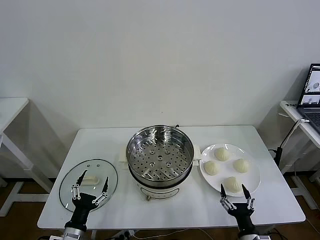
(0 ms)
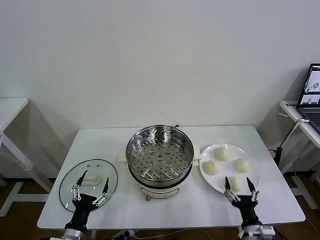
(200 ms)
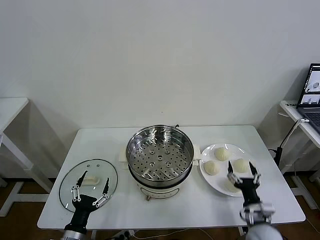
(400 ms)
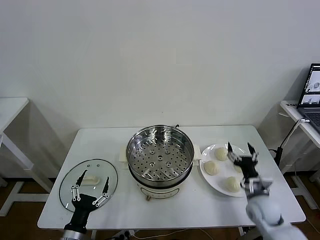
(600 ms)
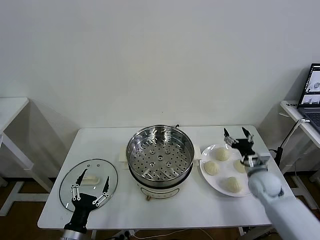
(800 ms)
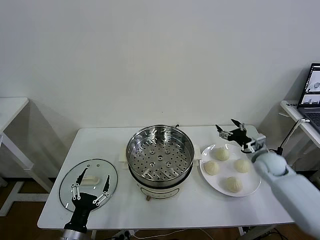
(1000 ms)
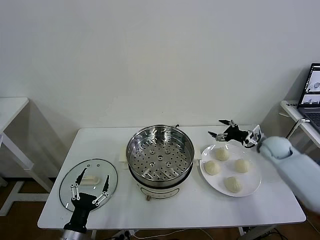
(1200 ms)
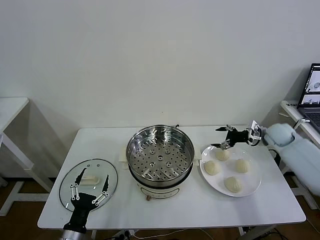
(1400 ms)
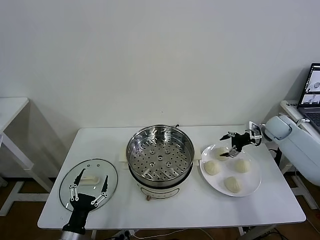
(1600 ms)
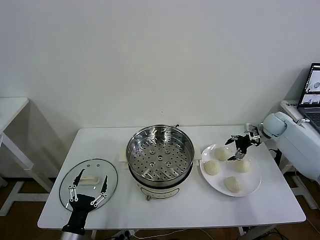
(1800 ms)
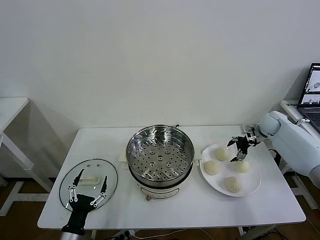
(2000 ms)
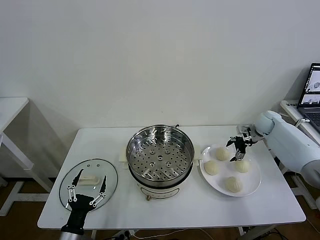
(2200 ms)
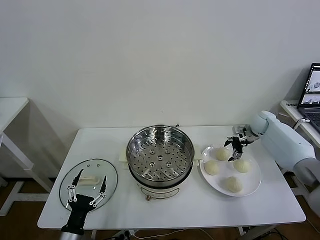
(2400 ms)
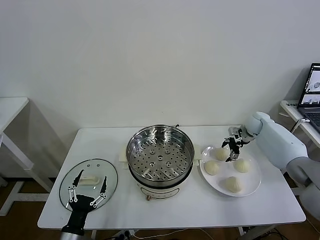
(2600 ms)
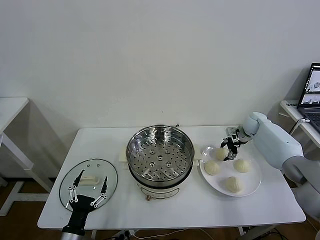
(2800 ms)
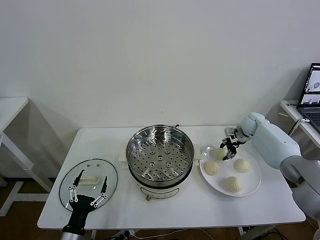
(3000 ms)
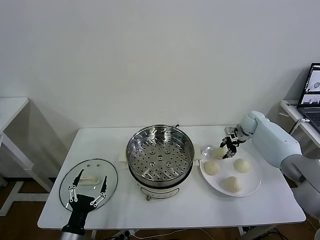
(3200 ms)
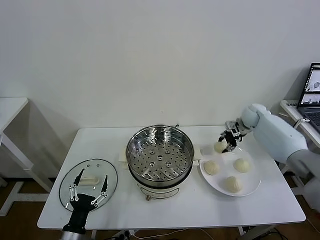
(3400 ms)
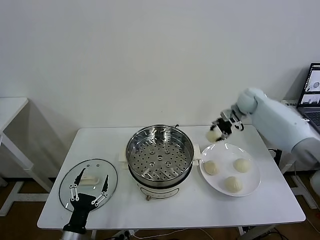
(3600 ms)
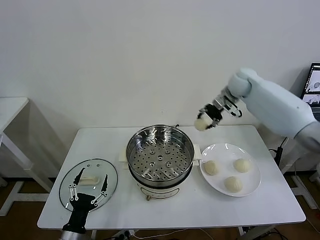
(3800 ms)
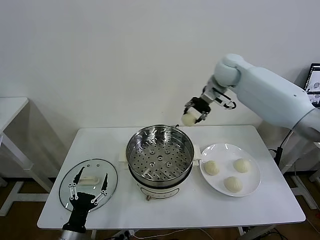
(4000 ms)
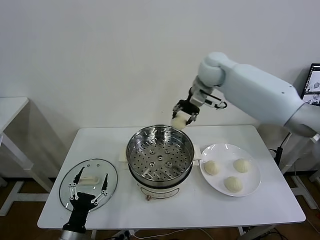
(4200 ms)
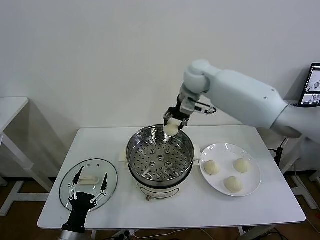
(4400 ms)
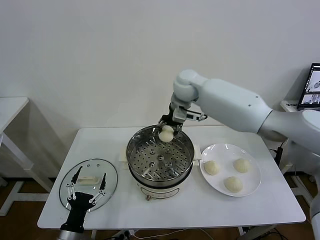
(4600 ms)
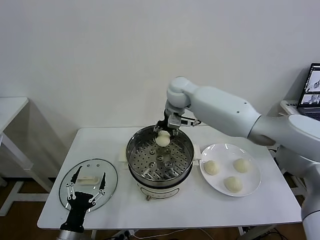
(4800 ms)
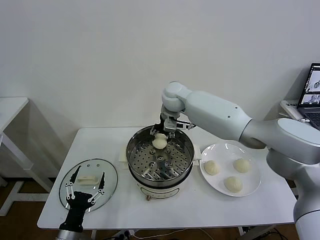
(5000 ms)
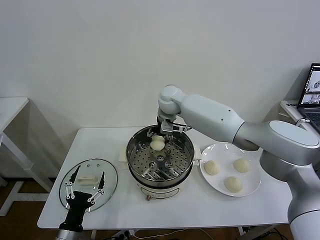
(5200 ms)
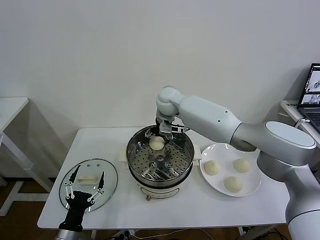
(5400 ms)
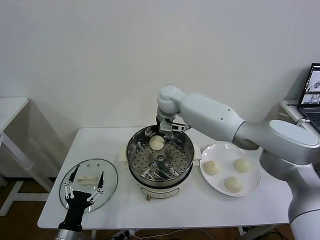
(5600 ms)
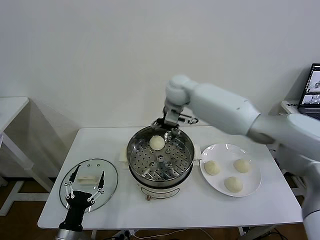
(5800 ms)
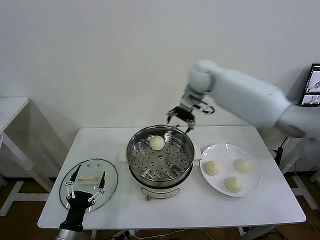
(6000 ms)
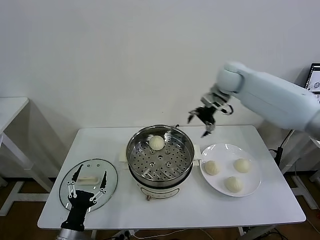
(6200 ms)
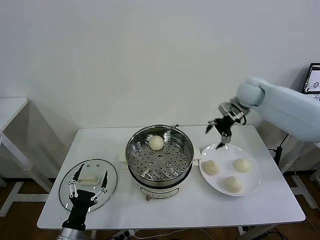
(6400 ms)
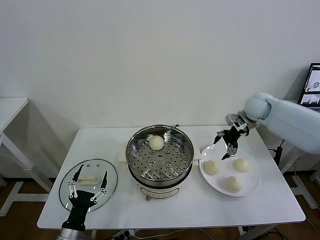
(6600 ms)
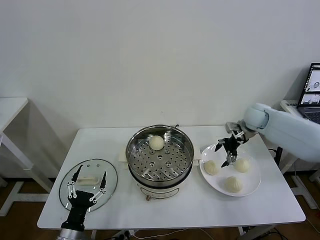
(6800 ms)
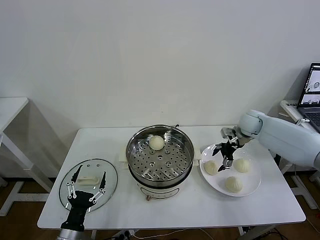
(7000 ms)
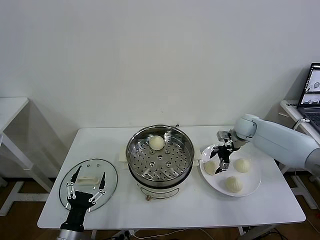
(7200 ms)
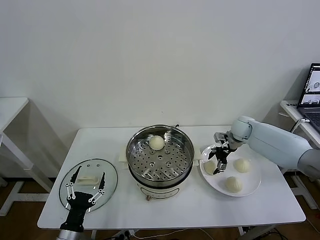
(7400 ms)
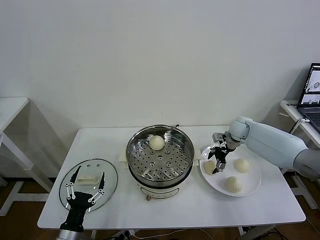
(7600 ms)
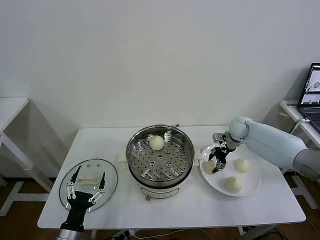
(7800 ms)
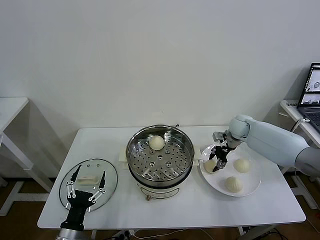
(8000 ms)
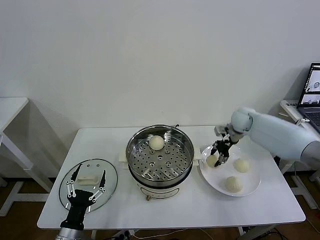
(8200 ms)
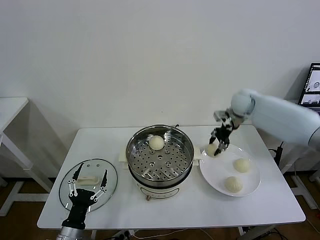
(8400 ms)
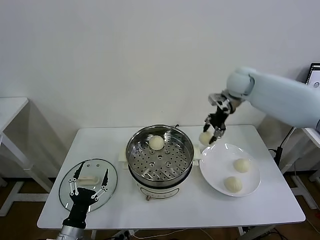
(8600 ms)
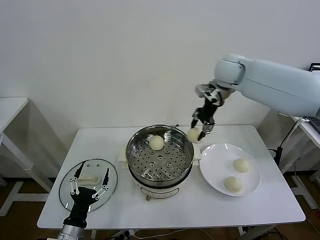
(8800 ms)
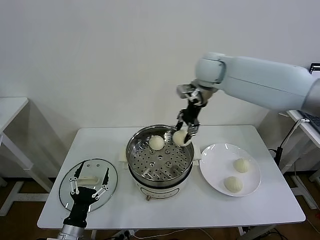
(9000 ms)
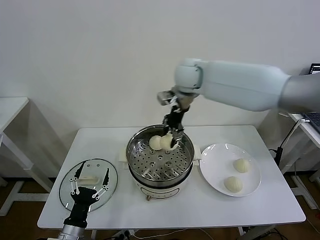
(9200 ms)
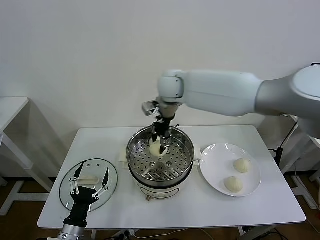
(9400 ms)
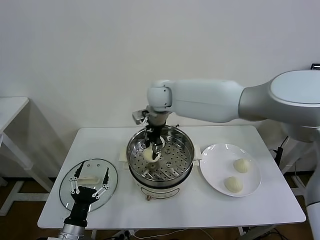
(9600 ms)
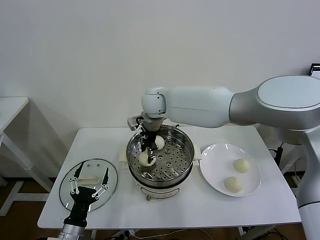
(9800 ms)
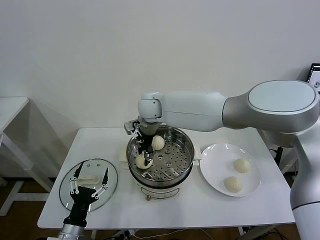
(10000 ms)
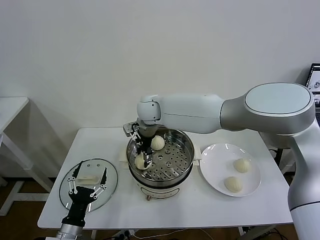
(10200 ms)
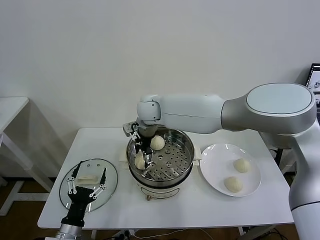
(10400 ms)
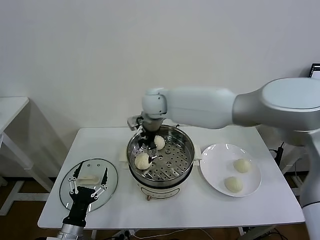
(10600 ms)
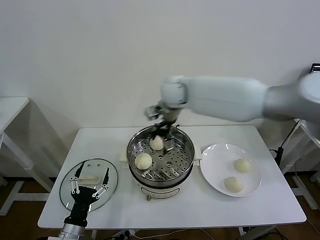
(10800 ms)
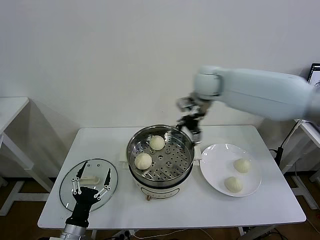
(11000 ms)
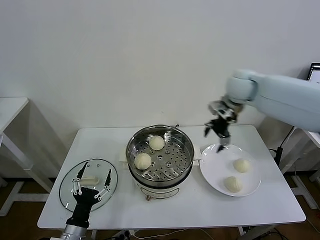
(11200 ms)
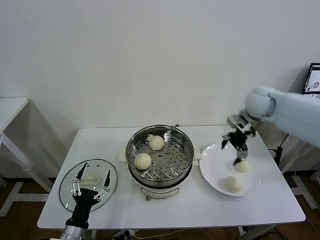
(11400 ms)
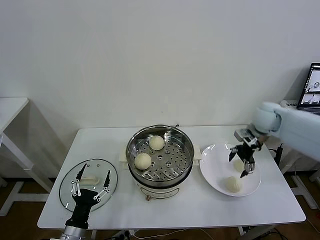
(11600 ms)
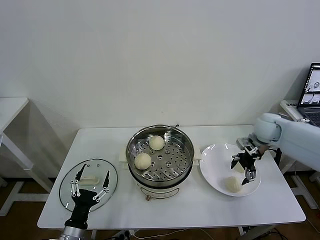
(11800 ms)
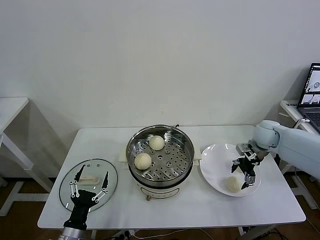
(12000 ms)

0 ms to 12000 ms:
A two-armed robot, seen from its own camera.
Task of the whole recording: take steamed baozi put them in steamer then cover it.
Step, 0 ms to 2800 ms: Grasp the baozi in the plate with right gripper.
Step, 3000 ms to 5400 ms: Place the baozi on the steamer with right gripper.
Step, 5600 ms to 7800 ms: Grasp the baozi in the plate with right gripper.
Step, 8000 ms to 10400 ms: Place the baozi on the steamer with right gripper.
1600 ms to 3000 ms: The right gripper goes about 10 cm to the left and forward, and closes.
3000 ms to 4400 ms: The right gripper is displaced to the left and upward by about 35 cm.
4400 ms to 6000 ms: The right gripper travels to the right by approximately 10 cm, and opens up.
6000 ms to 7600 ms: The right gripper heads downward and to the right, covering about 25 cm.
7600 ms to 9000 ms: The right gripper heads upward and to the left, covering approximately 35 cm, and closes its fingers.
9000 ms to 10400 ms: The right gripper goes approximately 20 cm to the left and downward, and opens its fingers.
10400 ms to 12000 ms: The right gripper goes approximately 40 cm to the right.

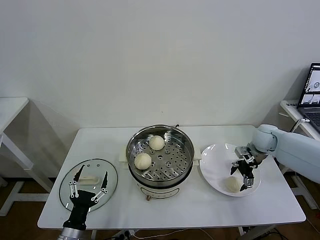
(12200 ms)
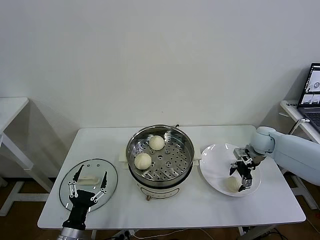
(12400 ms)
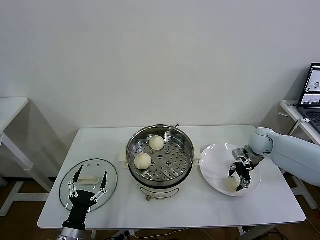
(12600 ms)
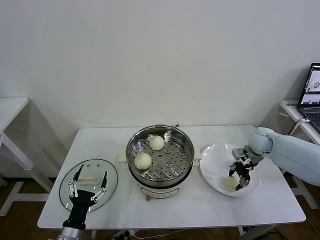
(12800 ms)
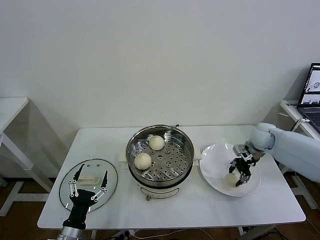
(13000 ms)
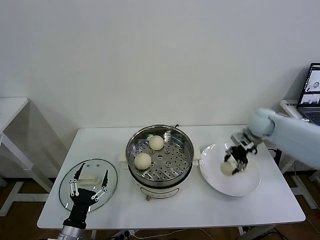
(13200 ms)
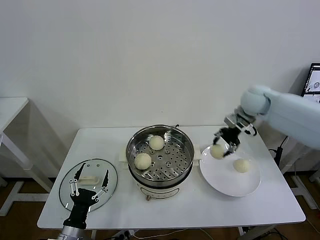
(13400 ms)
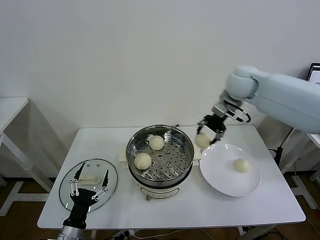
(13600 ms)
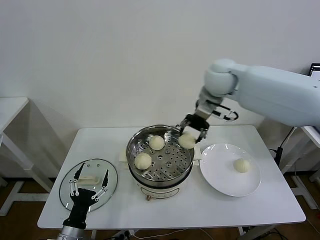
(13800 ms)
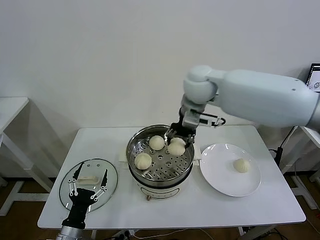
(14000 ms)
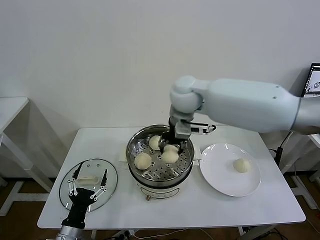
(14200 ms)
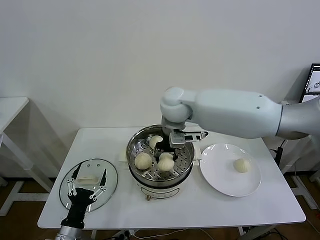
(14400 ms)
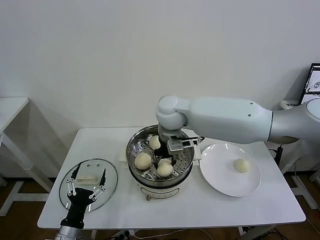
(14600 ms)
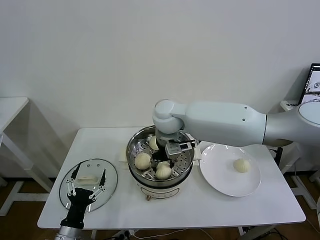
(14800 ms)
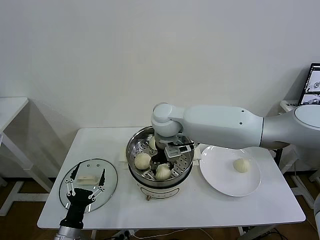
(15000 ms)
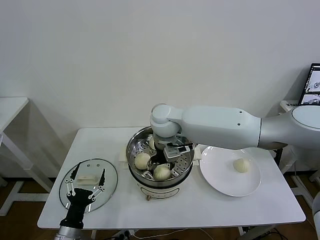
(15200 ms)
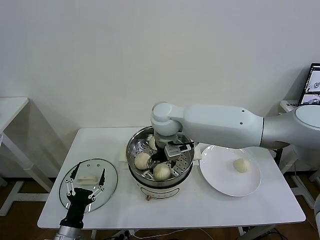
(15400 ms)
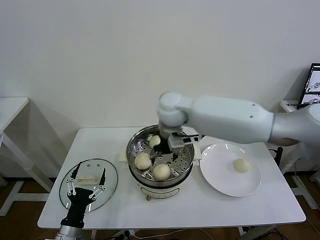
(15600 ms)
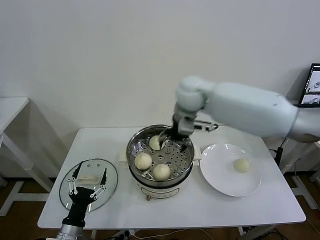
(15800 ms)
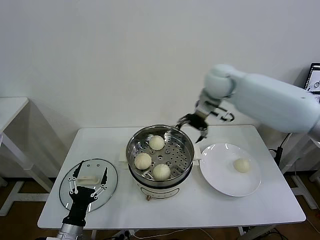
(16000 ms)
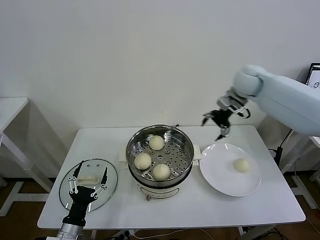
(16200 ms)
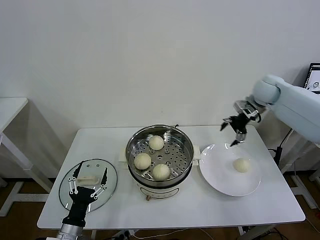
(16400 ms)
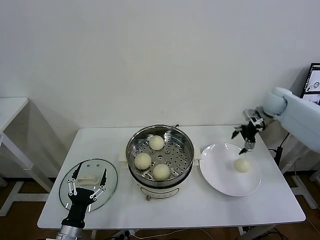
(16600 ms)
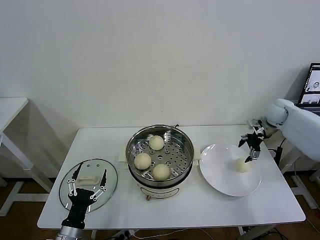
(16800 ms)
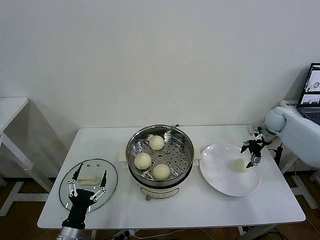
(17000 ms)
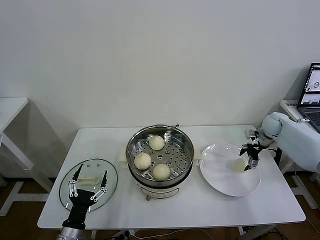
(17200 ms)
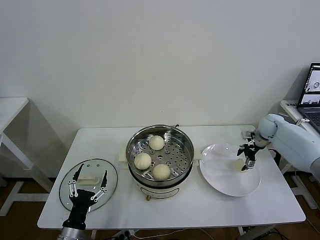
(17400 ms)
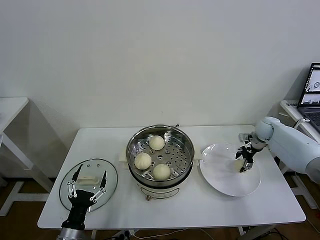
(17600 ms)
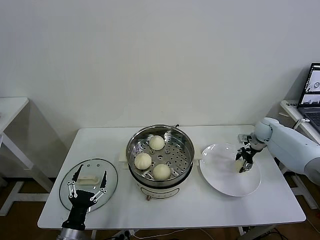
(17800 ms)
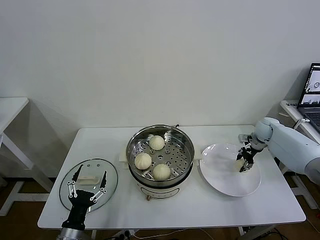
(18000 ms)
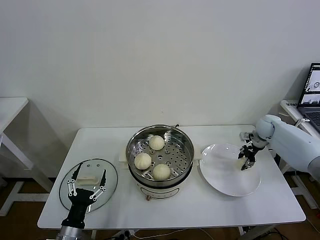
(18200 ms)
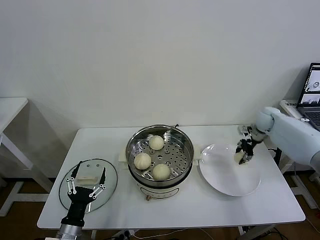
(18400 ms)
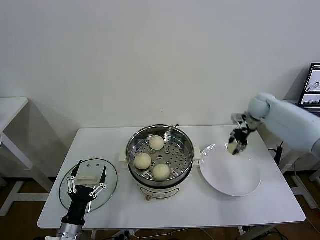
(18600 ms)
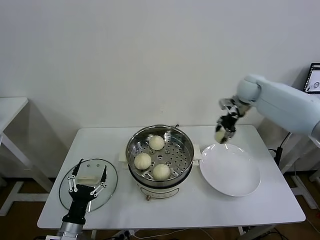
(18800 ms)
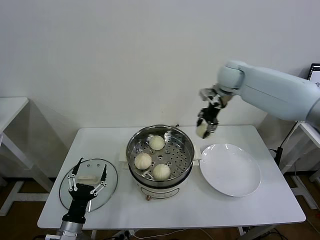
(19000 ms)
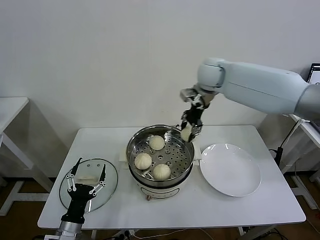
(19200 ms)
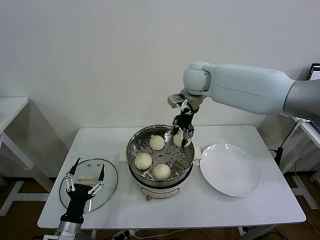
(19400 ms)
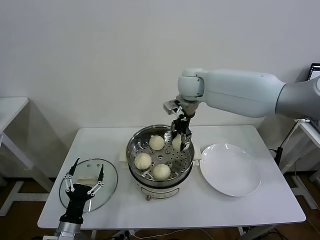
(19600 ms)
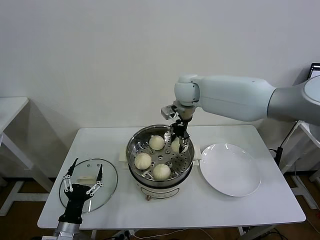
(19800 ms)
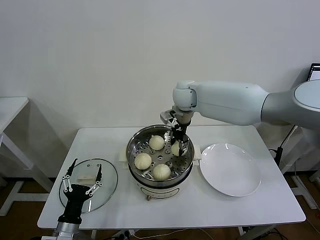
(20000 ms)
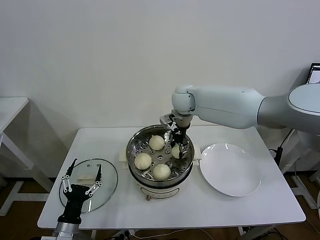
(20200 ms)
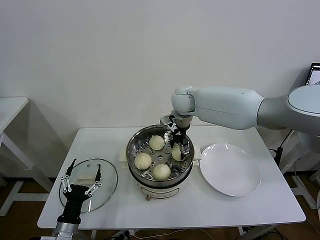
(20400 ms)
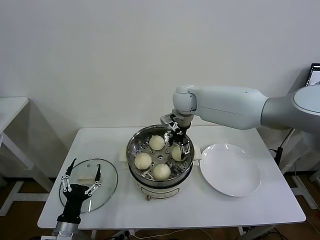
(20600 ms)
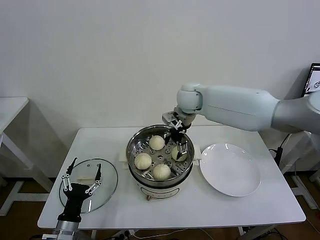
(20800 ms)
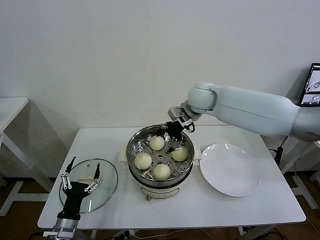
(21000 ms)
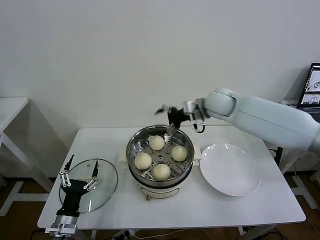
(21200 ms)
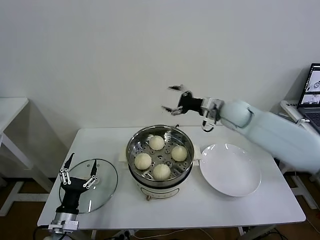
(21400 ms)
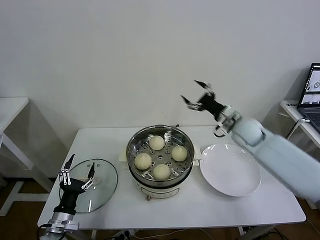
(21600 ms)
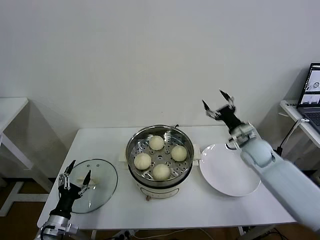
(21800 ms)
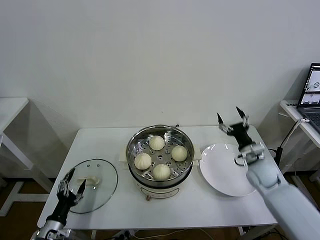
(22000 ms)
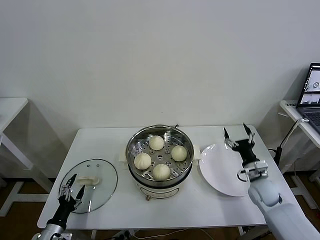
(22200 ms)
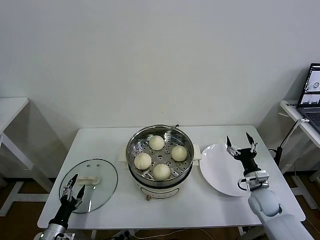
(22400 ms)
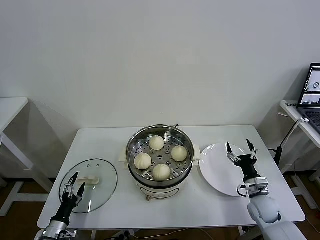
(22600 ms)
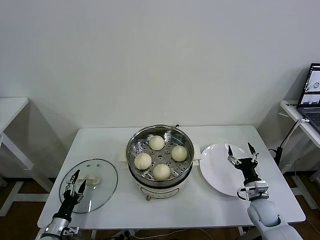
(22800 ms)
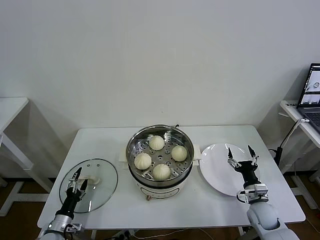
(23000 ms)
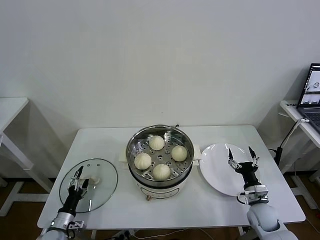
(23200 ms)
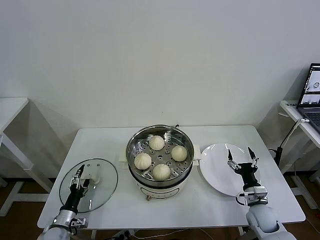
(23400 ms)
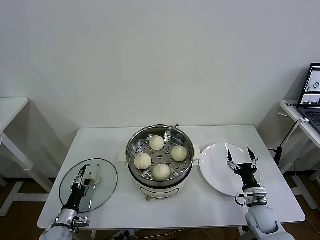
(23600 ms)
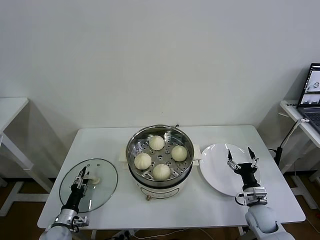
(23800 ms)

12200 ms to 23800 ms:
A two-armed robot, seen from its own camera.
Task of the whole recording: take steamed baozi put them in steamer then cover it.
Step, 12800 ms to 15200 ms: Place the baozi on the steamer with right gripper.
Step, 15400 ms to 17800 ms: Grasp the baozi in the plate with right gripper.
Step, 18200 ms to 20400 ms: Place the baozi on the steamer with right gripper.
12200 ms to 13600 ms: The right gripper shifts about 30 cm upward and to the left, and closes up.
13600 ms to 15000 ms: The right gripper moves to the left and downward, roughly 25 cm.
15000 ms to 16600 ms: The right gripper travels to the right by approximately 40 cm, and opens up.
16600 ms to 18000 ms: The right gripper travels downward by roughly 15 cm, and closes up.
18000 ms to 19400 ms: The right gripper moves to the left and upward, some 40 cm.
19400 ms to 21000 ms: The right gripper is displaced downward by about 5 cm, and opens up.
21000 ms to 22400 ms: The left gripper shifts approximately 10 cm to the left and downward. The right gripper moves downward, to the right and backward, some 40 cm.
22400 ms to 23800 ms: The right gripper shifts by about 5 cm, while the left gripper heads forward, covering about 5 cm, and closes.
